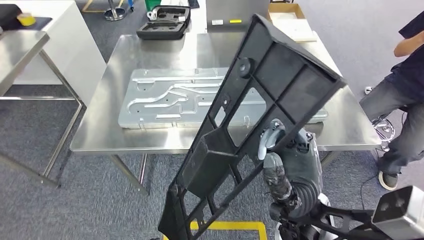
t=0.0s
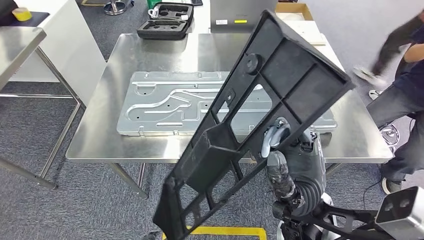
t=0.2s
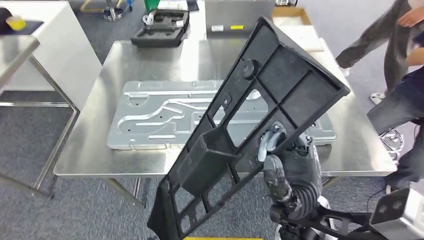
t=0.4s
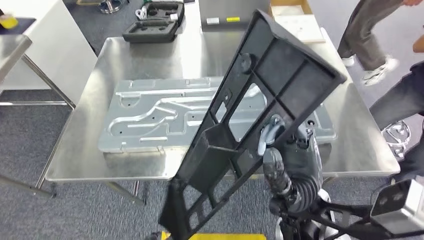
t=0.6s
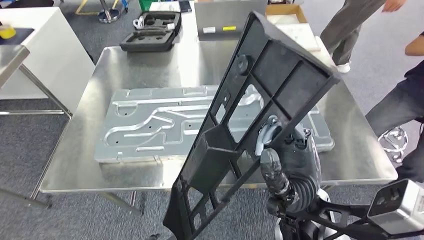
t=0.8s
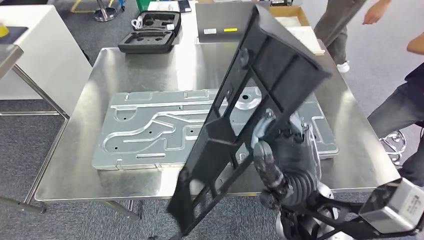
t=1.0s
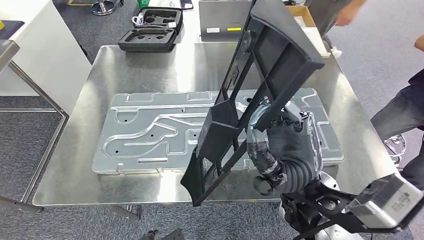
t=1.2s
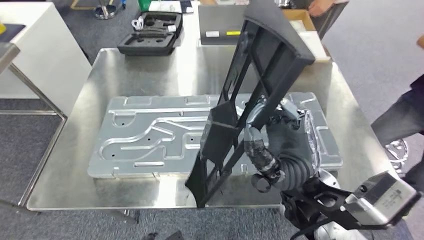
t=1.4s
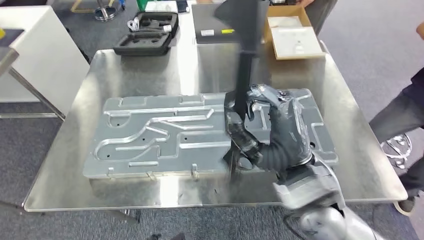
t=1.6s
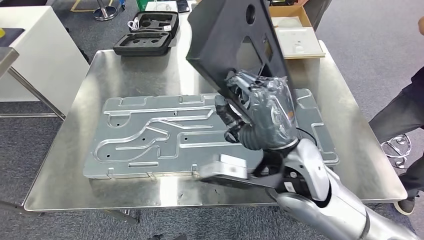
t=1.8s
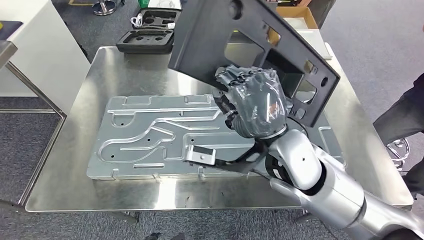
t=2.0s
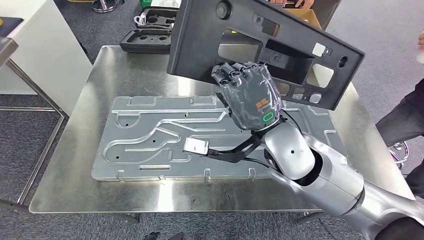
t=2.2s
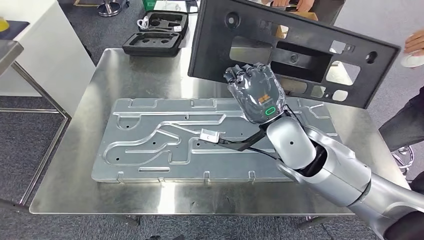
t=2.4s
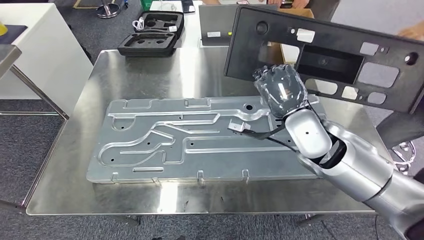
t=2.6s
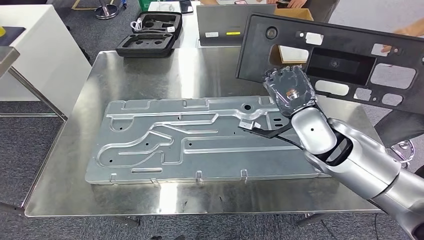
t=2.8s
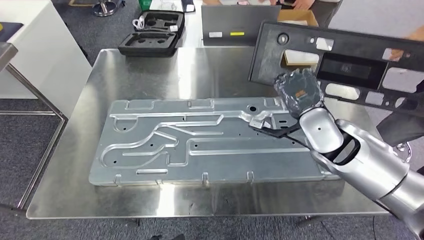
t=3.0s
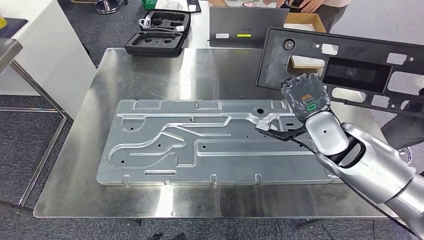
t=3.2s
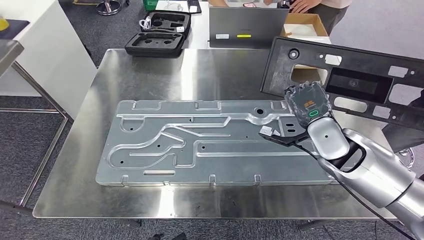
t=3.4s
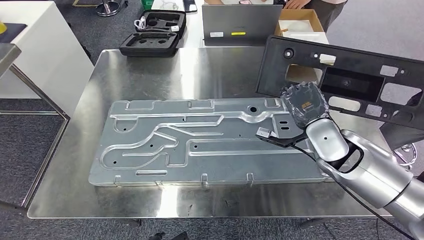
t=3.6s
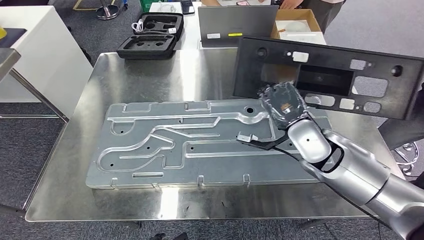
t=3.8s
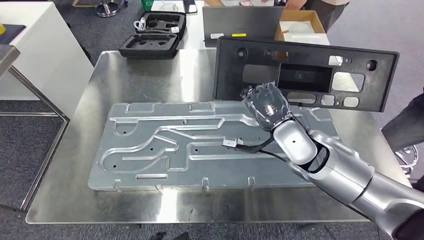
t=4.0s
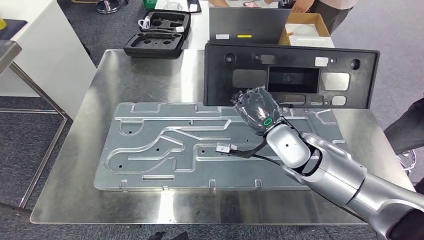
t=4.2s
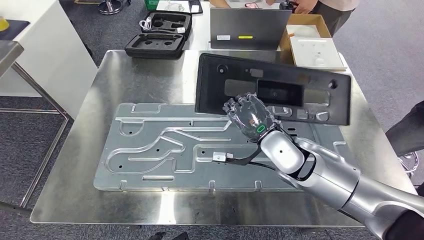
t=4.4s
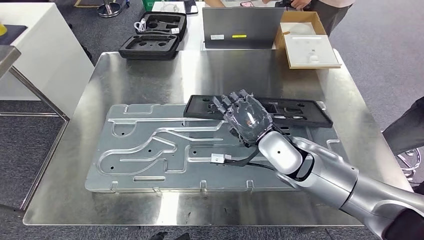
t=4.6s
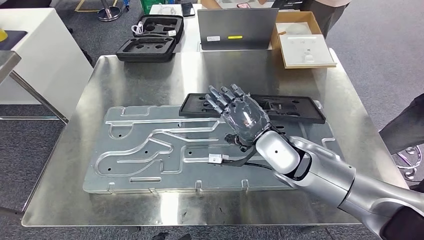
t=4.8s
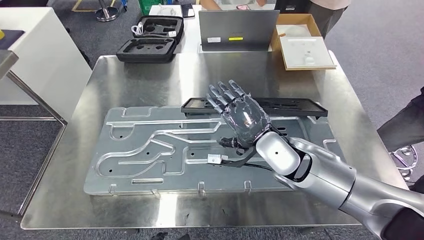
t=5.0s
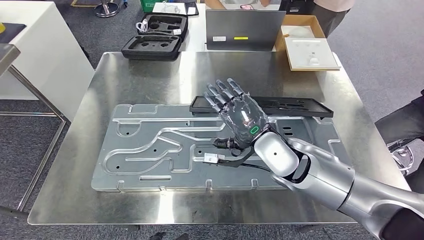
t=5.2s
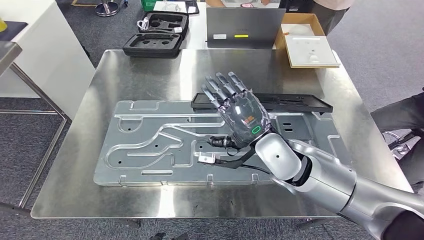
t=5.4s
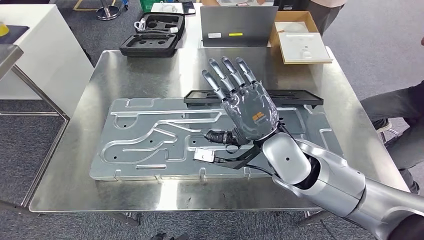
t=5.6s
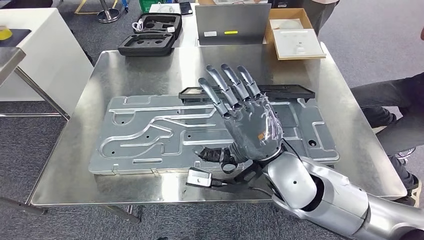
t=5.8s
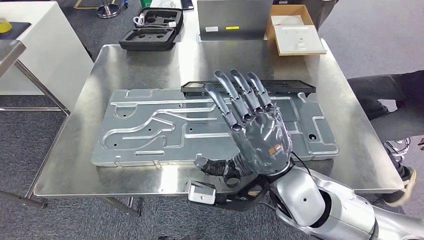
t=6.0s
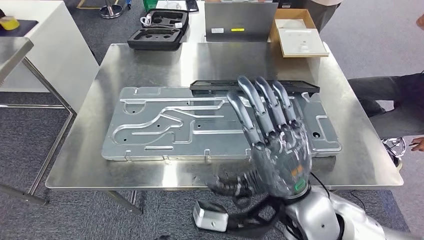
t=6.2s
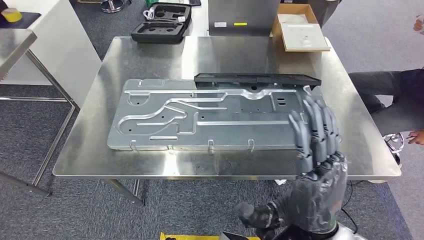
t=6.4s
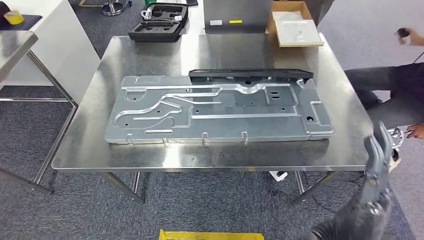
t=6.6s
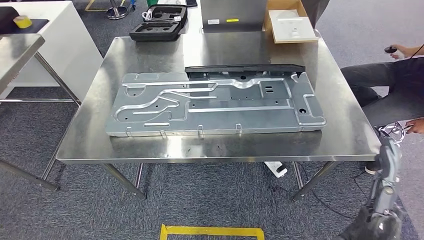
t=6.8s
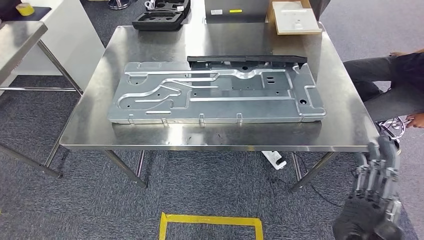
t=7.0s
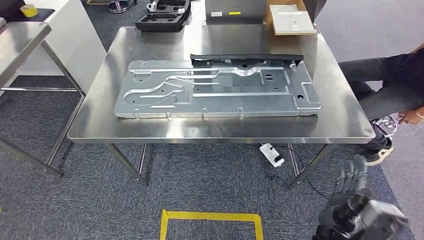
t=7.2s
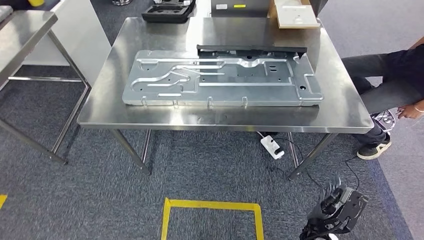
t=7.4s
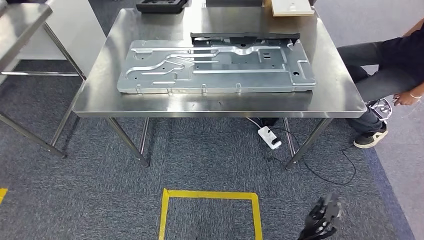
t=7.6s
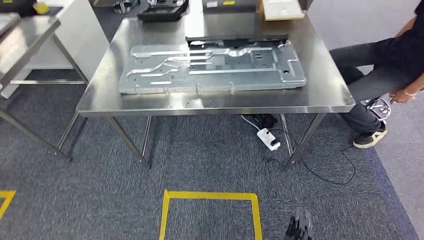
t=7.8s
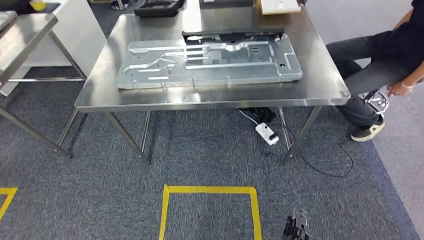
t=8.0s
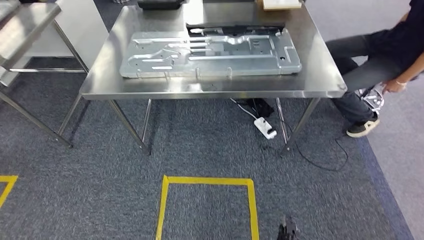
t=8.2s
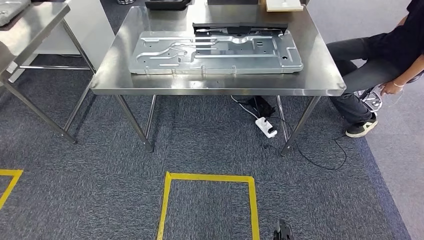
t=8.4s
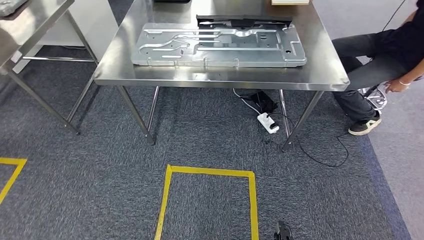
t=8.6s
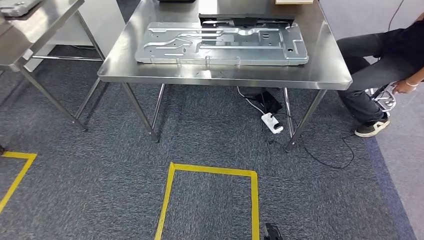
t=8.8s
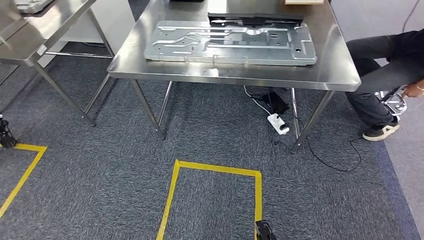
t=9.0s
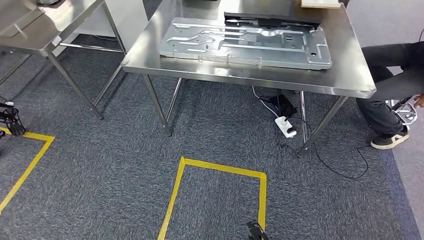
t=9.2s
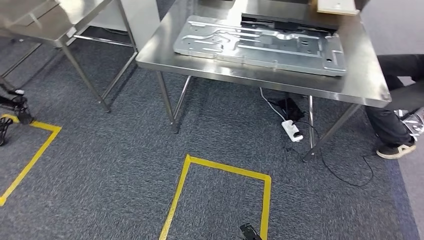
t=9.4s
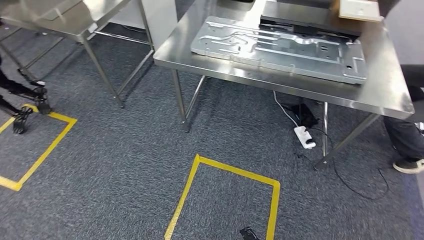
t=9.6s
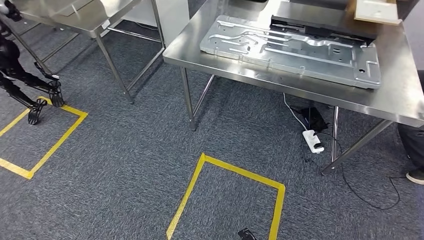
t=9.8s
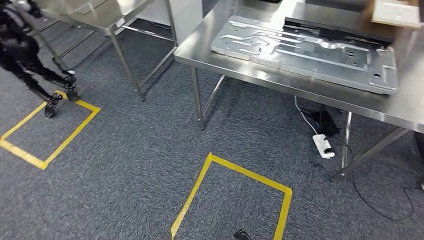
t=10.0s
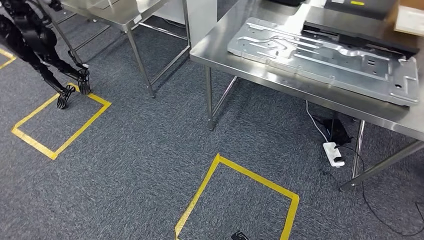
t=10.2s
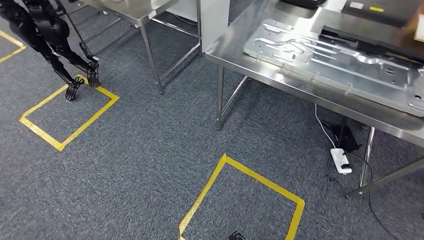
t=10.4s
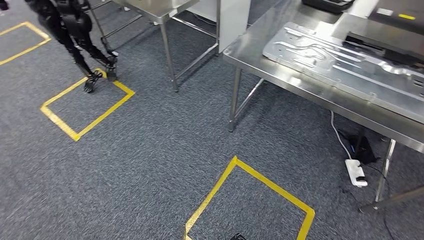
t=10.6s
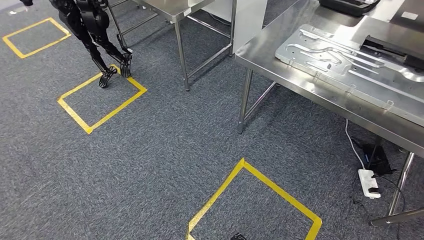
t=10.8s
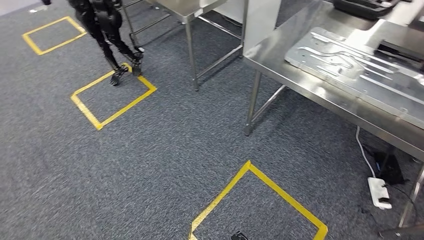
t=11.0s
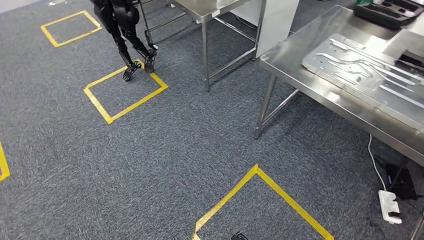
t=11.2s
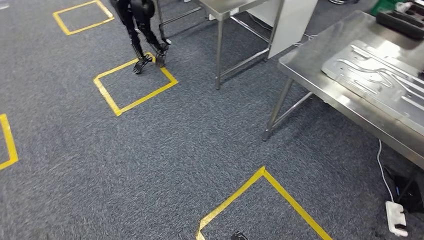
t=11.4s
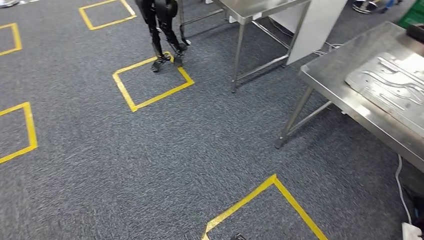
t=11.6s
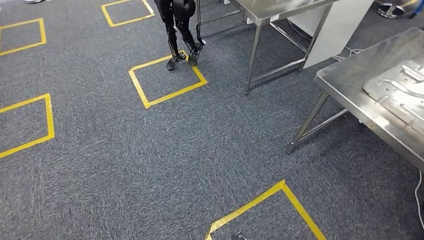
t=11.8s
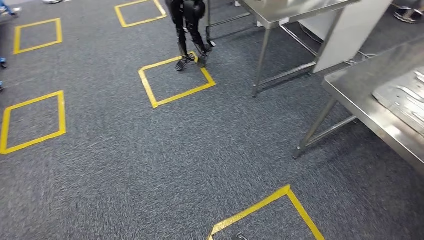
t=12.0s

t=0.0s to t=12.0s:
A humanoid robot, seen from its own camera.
Step, t=0.8s to t=6.2s: Insert the large material into the corresponding slot on the workbench.

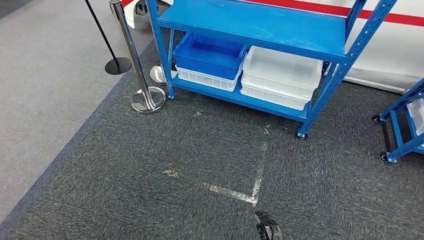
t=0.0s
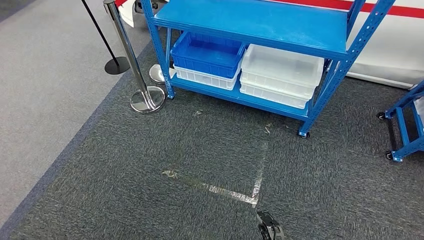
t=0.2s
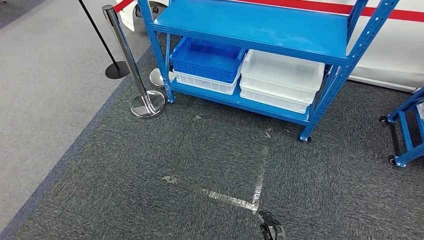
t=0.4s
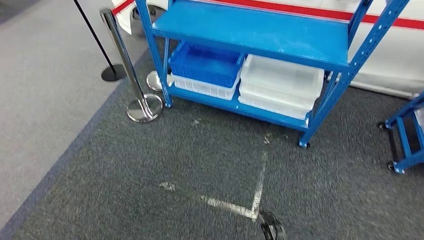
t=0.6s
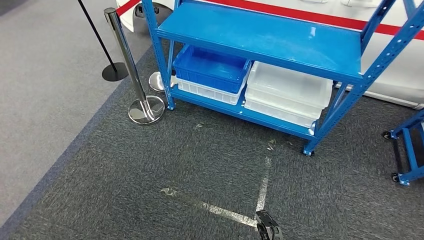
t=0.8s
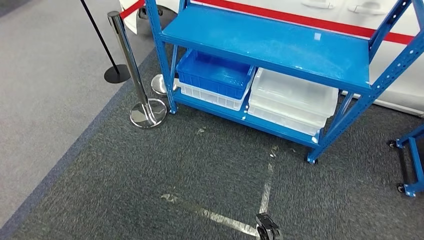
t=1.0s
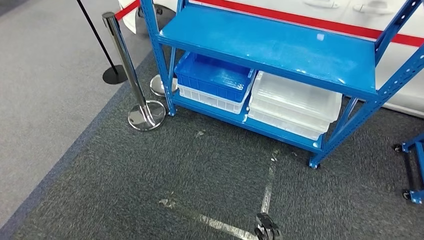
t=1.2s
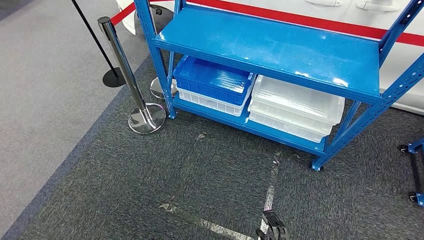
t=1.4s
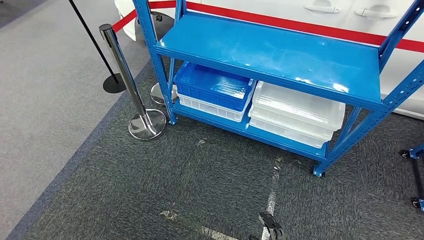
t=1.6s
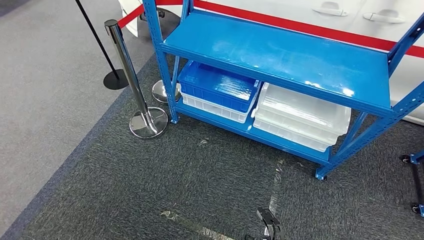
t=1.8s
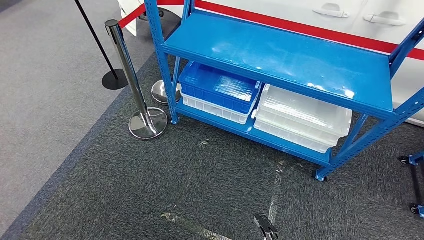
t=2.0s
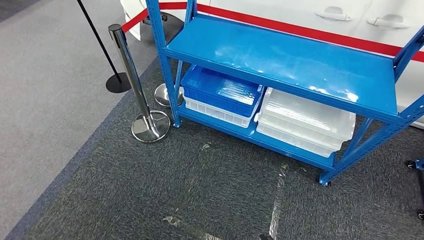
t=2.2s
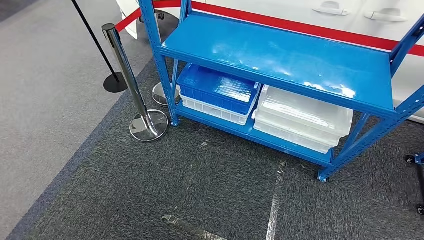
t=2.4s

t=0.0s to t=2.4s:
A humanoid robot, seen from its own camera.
Step, t=0.0s to t=2.2s: Move to the initial position of the shelf.
